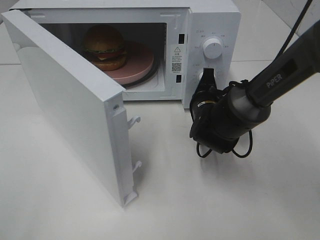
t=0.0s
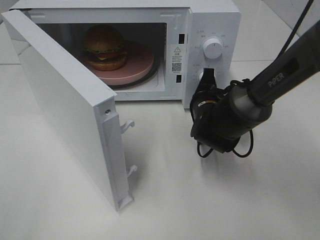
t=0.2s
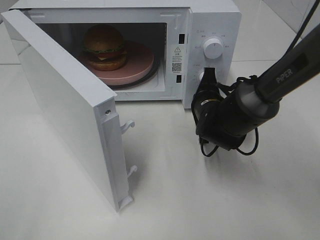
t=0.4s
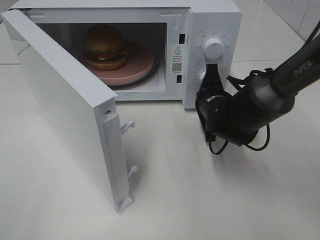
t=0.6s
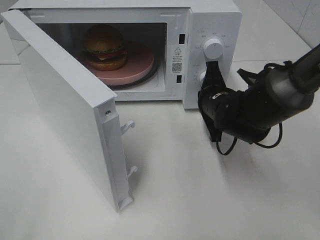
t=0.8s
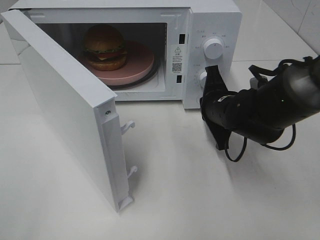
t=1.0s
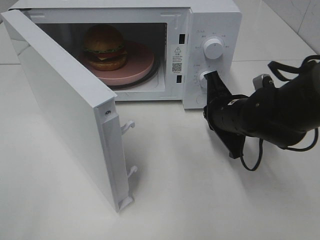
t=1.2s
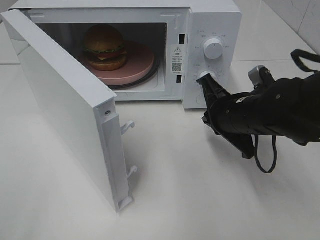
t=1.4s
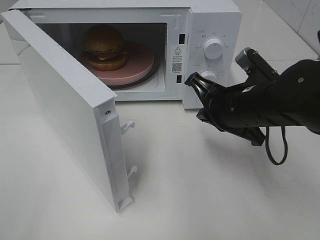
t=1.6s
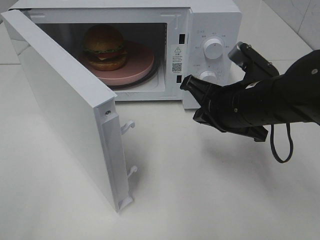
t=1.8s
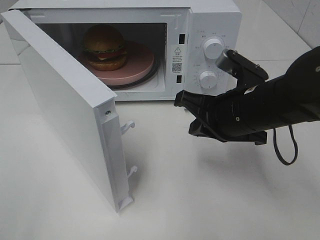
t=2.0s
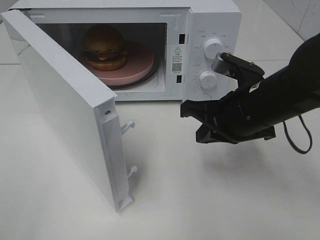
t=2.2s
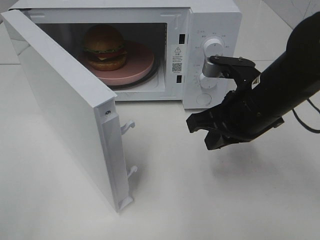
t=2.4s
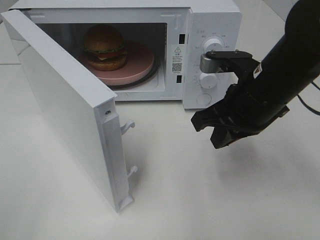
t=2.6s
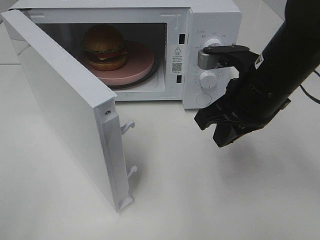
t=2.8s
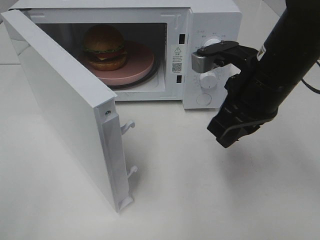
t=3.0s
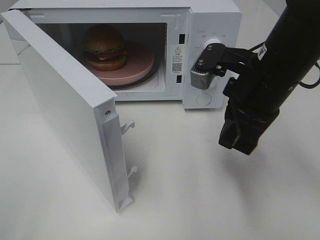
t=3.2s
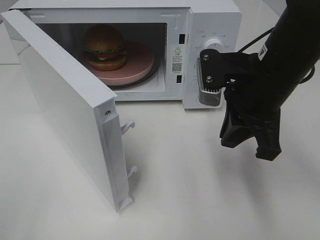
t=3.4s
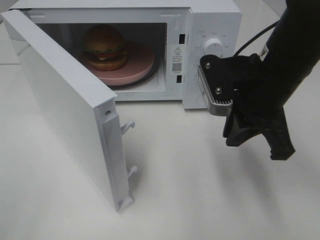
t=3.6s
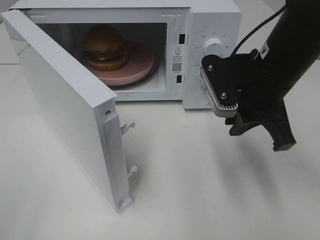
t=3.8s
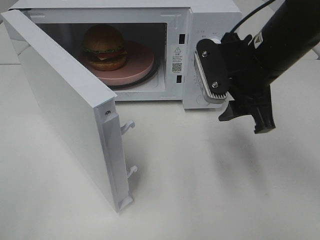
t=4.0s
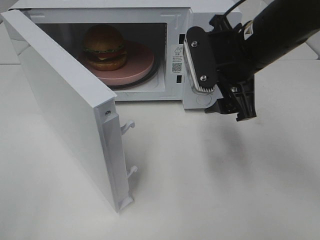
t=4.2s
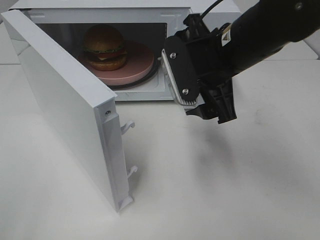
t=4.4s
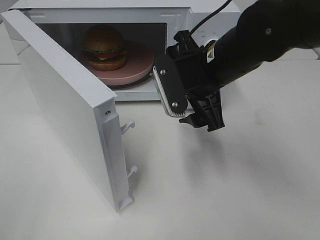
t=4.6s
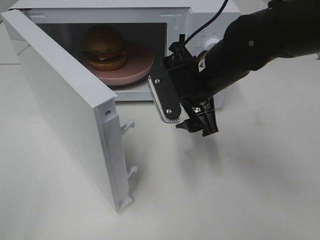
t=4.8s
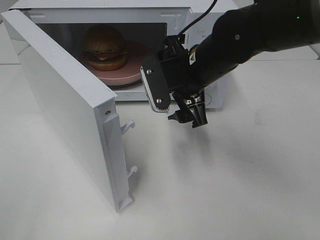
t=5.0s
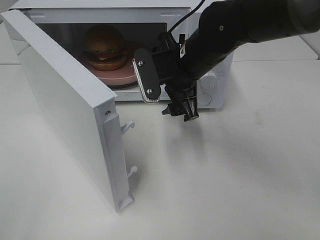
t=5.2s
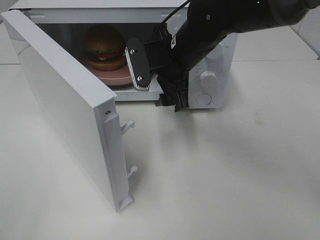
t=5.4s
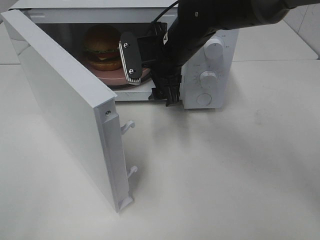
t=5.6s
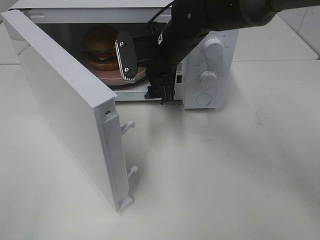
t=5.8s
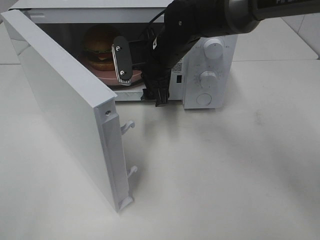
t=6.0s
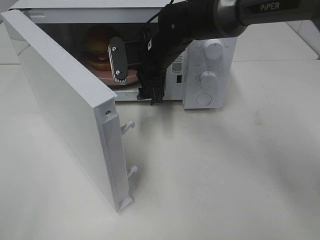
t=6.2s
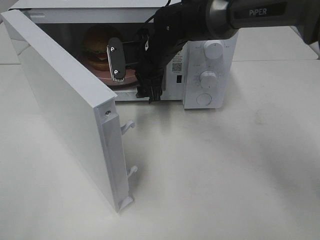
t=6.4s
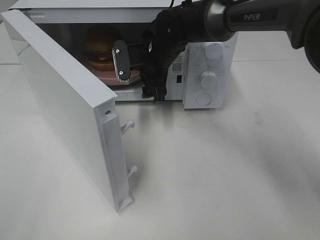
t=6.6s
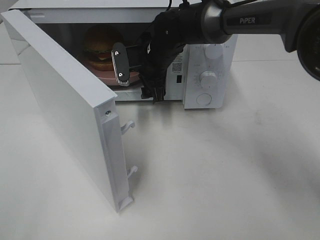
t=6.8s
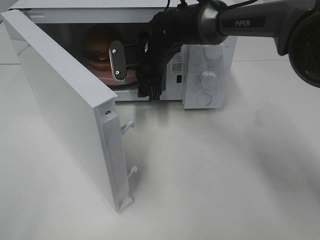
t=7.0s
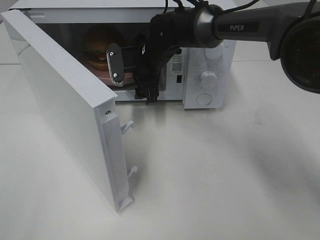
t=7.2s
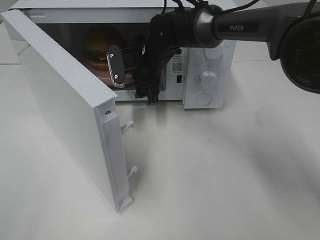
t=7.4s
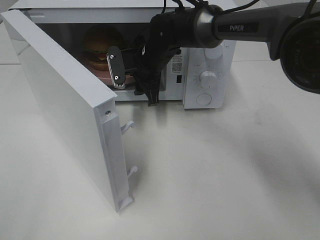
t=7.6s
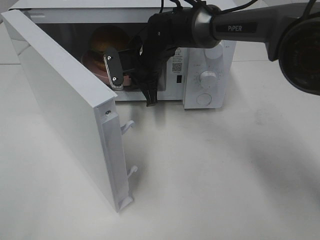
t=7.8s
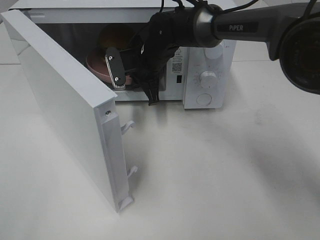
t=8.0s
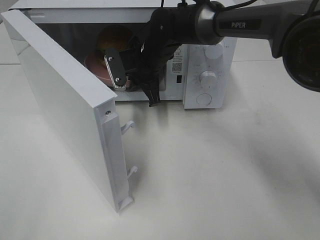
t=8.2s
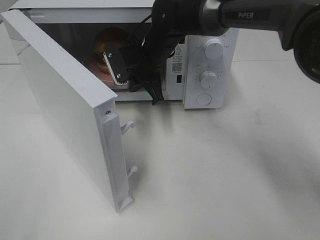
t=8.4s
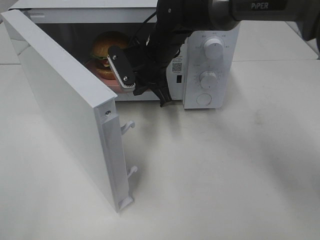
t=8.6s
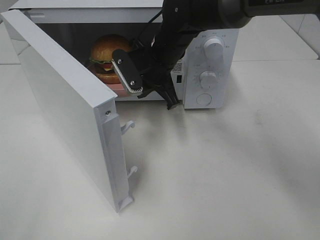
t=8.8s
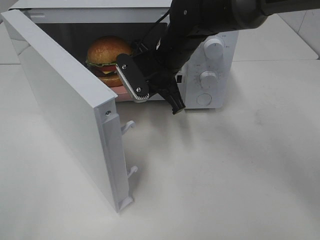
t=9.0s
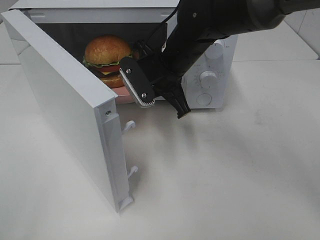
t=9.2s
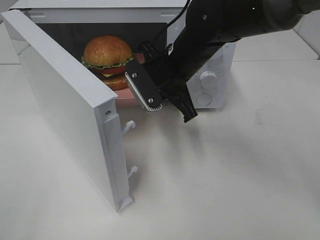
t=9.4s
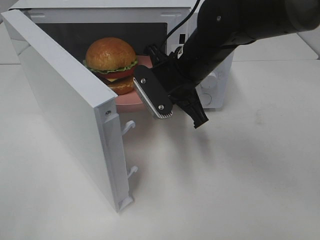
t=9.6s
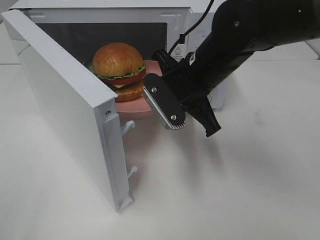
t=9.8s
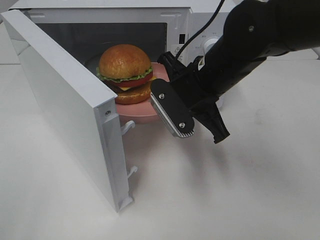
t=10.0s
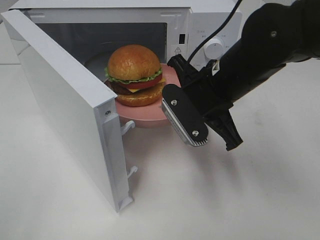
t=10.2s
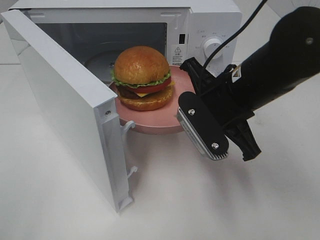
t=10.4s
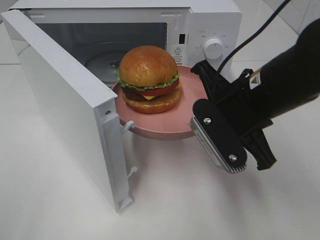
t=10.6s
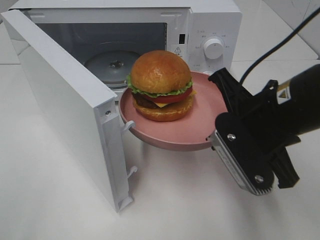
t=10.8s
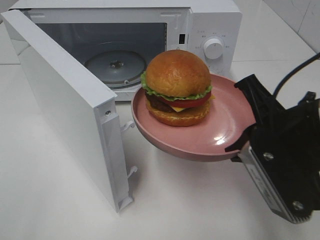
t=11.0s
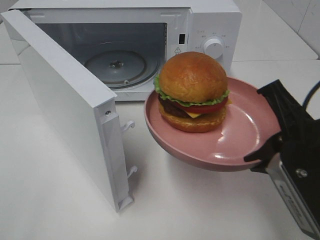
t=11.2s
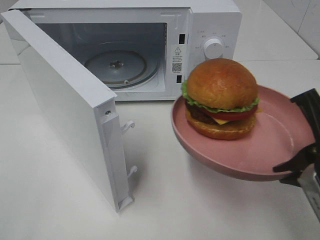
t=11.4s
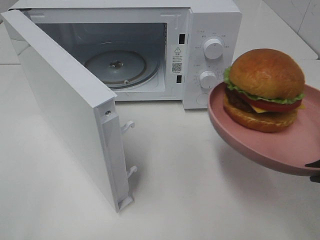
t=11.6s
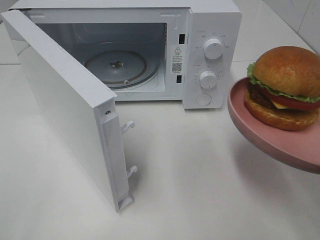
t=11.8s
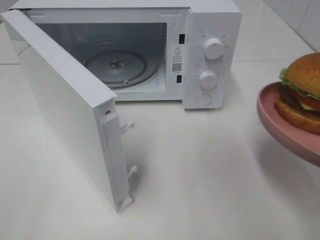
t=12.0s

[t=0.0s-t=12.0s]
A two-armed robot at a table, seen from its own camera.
Task of the whole recording: Heat the burger.
Step, t=1.0s to t=8.0s: Right hand: grab the plate with the hamburger.
t=0.0s to t=1.6s: The right gripper travels backward and upward by about 15 cm.
t=1.6s to t=3.0s: The right gripper is displaced upward by some 5 cm.
t=3.0s to t=4.4s: The right gripper shifts by about 5 cm, and opens.
t=4.4s to t=6.0s: The right gripper shifts some 15 cm forward, to the left and downward.
t=6.0s to t=7.6s: The right gripper moves approximately 5 cm, and closes its fingers.
t=7.6s to t=9.0s: The right gripper goes approximately 5 cm backward, and closes.
t=9.0s to t=10.4s: The right gripper is displaced backward and to the right by approximately 15 cm.
t=10.4s to t=12.0s: The right gripper shifts roughly 20 cm backward and to the right.

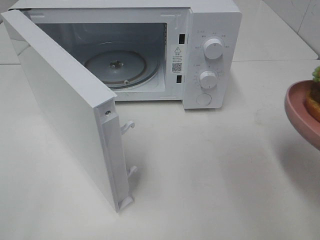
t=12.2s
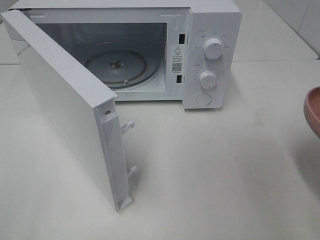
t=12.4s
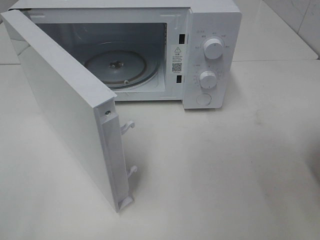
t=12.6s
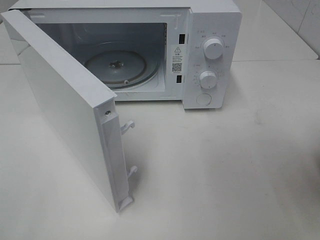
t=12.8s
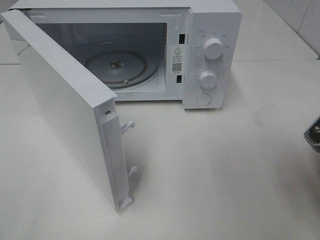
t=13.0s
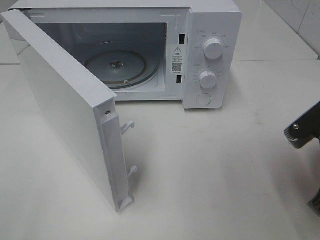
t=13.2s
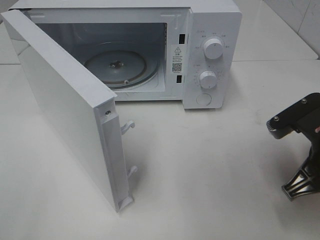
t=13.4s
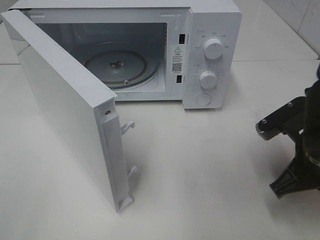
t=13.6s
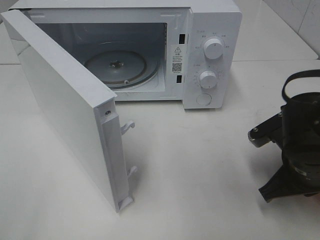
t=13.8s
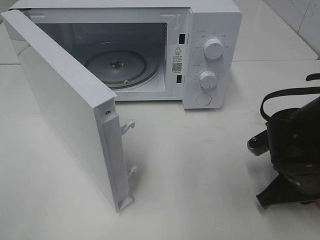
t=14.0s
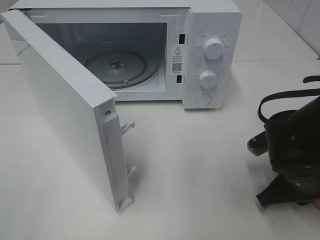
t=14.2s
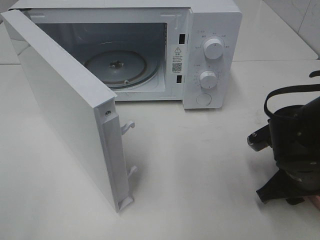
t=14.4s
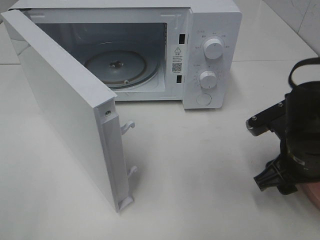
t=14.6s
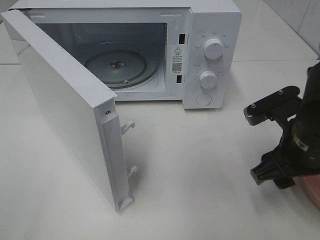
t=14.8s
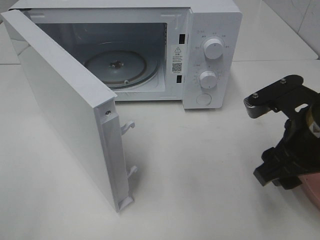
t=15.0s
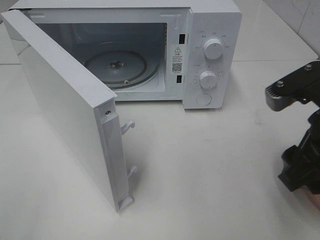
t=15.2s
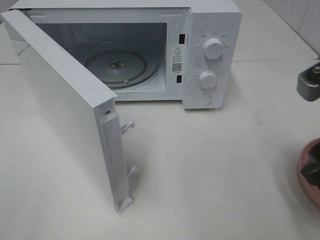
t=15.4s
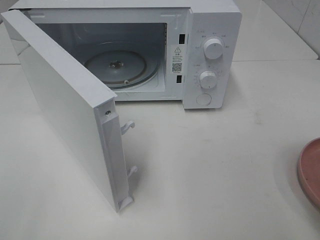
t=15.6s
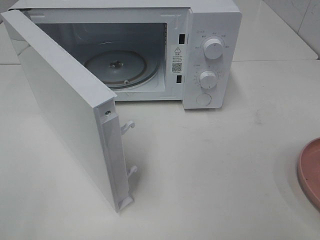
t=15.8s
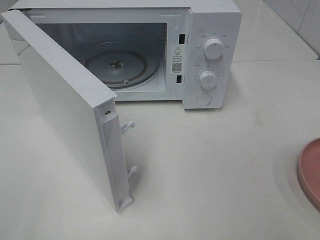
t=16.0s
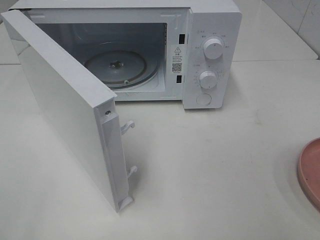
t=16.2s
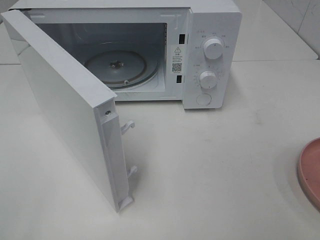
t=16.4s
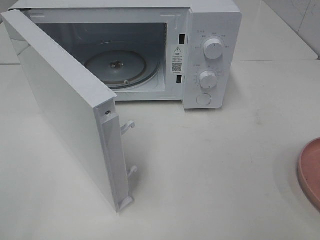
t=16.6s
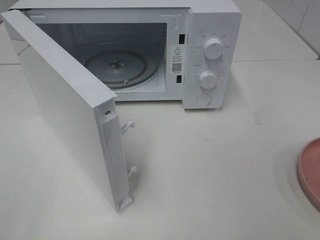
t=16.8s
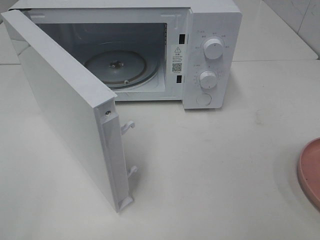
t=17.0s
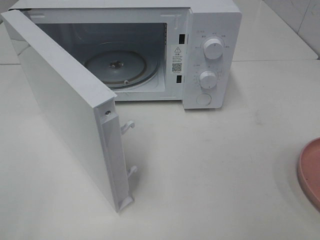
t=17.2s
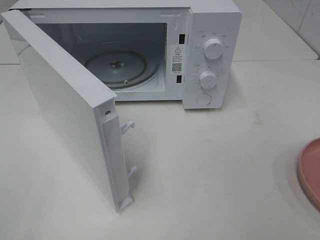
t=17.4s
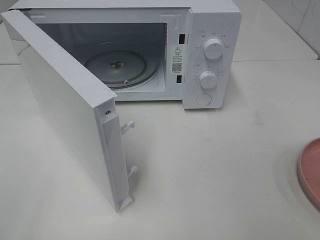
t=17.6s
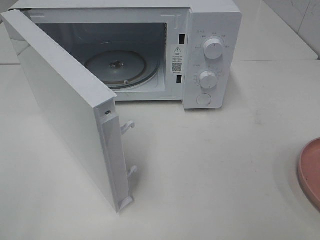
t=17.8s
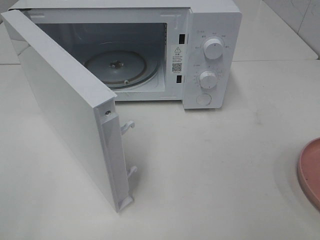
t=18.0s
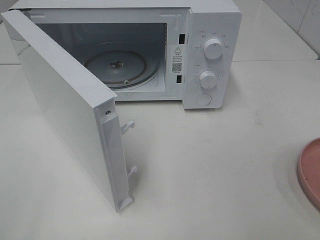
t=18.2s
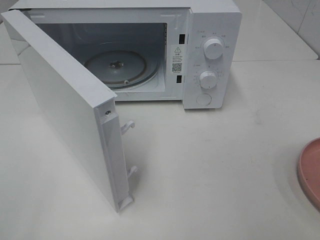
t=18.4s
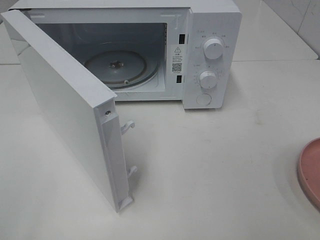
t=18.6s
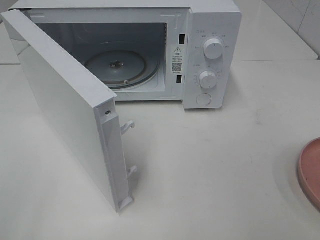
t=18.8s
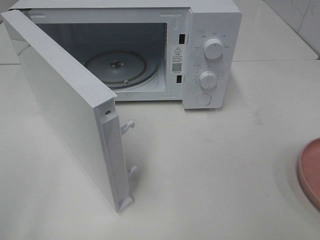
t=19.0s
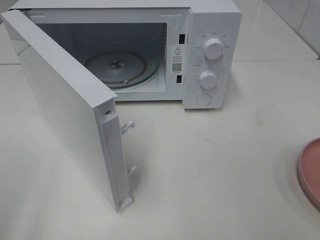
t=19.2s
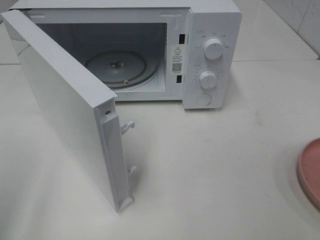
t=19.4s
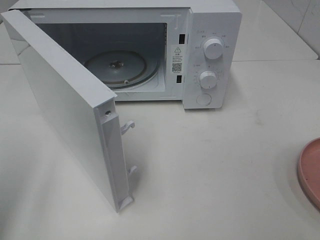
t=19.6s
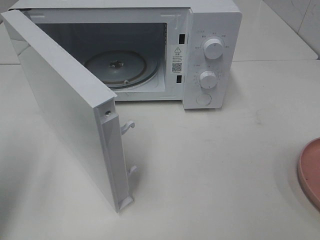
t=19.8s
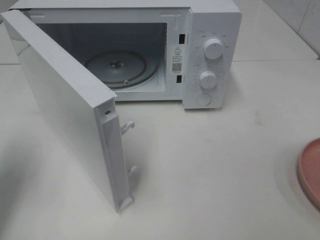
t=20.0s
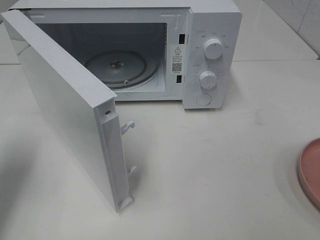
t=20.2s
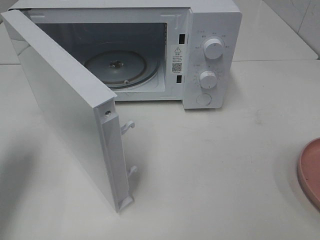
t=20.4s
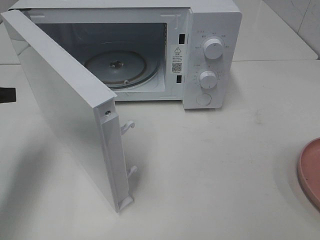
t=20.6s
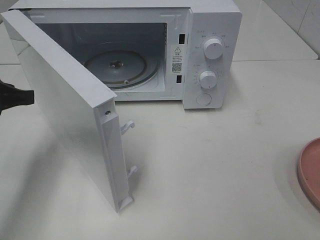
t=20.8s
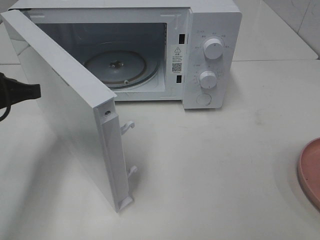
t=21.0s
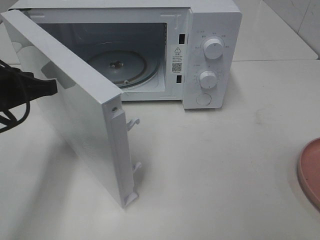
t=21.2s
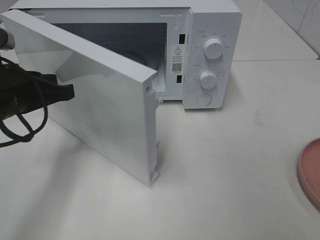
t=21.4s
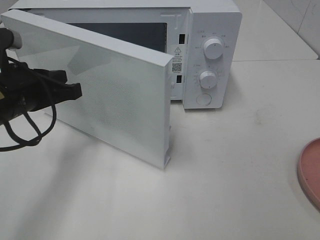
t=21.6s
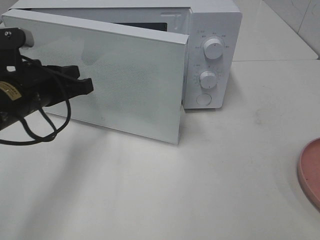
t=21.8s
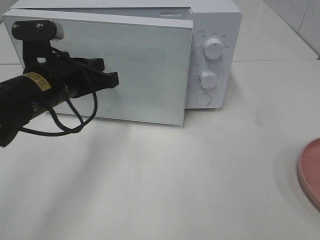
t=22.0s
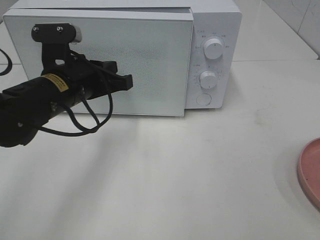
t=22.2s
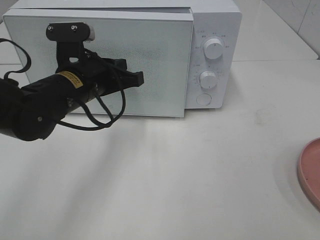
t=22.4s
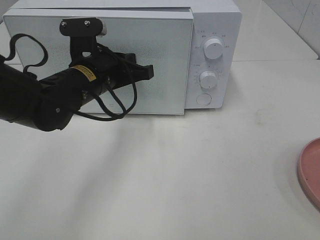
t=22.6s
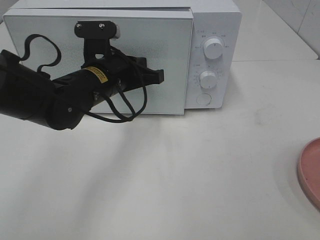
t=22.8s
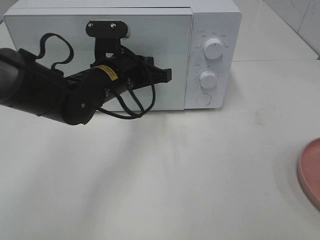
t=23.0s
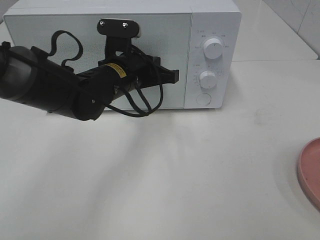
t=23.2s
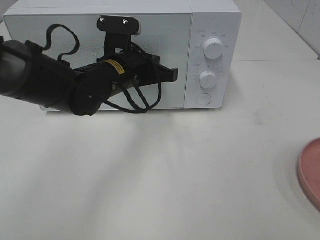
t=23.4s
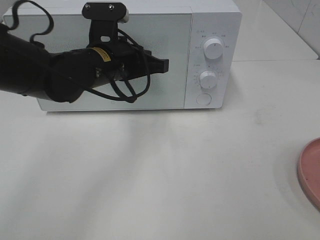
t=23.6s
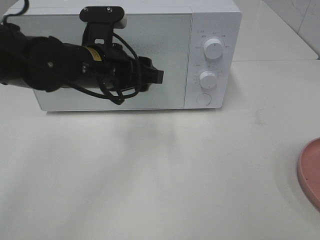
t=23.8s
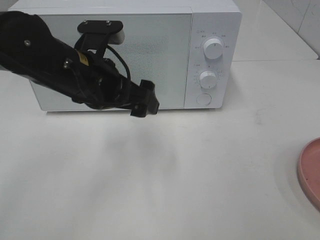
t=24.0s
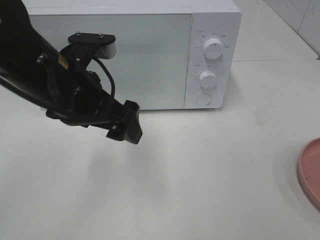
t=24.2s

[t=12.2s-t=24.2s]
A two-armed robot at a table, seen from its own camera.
Task of the whole recording: Heat the burger.
Step, t=12.2s to t=14.2s: Right hand: place the plate on the table.
Step, t=14.4s to t=23.6s: Left hand: close the microwave door.
t=12.2s to t=13.8s: The right gripper travels downward, forward and to the left by approximately 15 cm.
t=13.8s to t=15.2s: The right gripper moves upward, some 10 cm, and opens its fingers.
t=15.2s to t=16.6s: The right gripper travels backward and to the right by approximately 20 cm.
t=18.2s to t=19.8s: The left gripper is displaced forward by approximately 15 cm.
t=19.8s to t=21.2s: The left gripper moves to the right, forward and downward, roughly 15 cm, and closes.
t=21.2s to t=22.6s: The left gripper is displaced to the right and forward by approximately 15 cm.
t=22.6s to t=24.2s: The left gripper heads backward and upward, covering roughly 10 cm, and opens its fingers.
